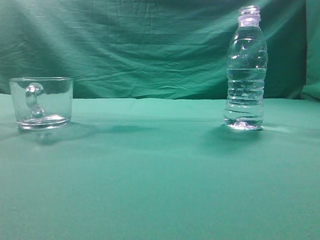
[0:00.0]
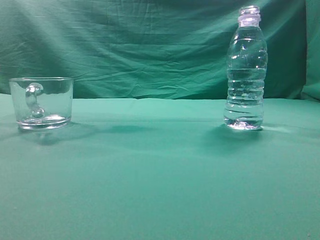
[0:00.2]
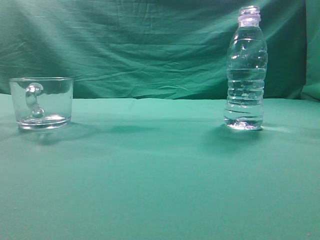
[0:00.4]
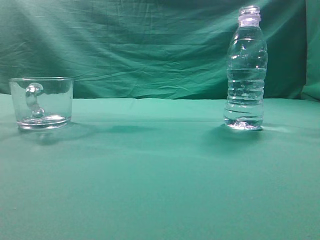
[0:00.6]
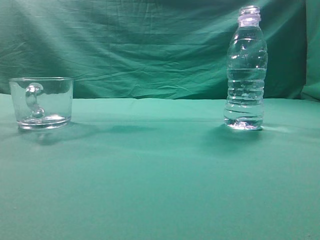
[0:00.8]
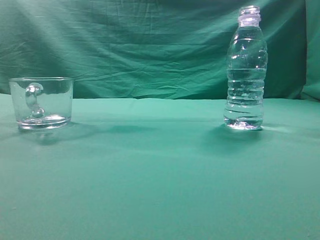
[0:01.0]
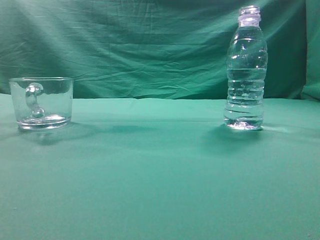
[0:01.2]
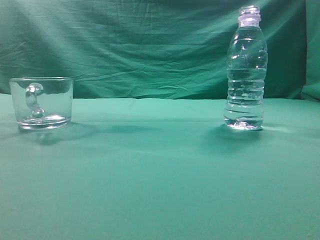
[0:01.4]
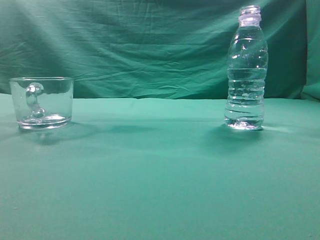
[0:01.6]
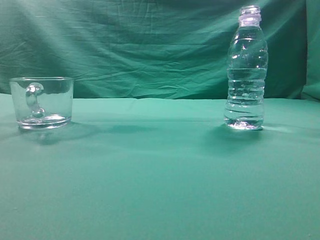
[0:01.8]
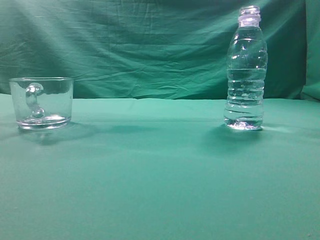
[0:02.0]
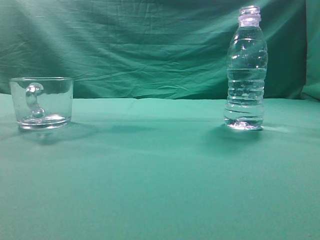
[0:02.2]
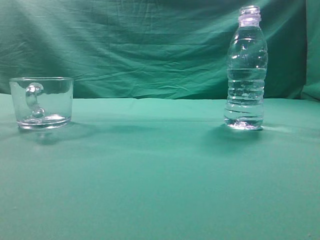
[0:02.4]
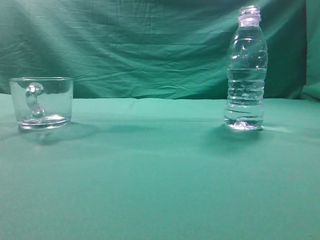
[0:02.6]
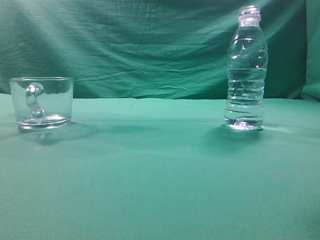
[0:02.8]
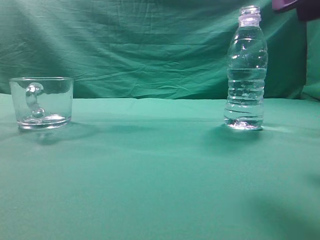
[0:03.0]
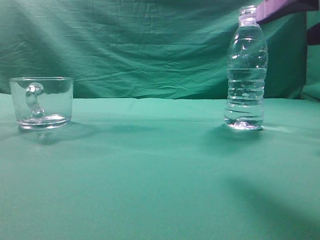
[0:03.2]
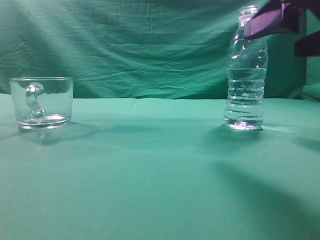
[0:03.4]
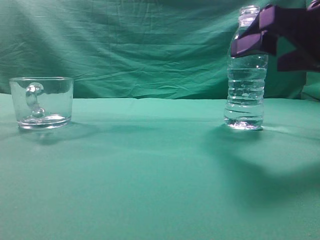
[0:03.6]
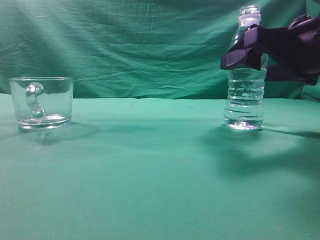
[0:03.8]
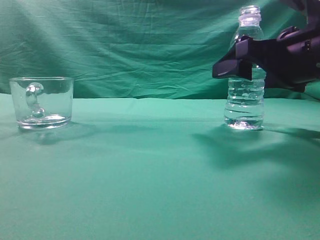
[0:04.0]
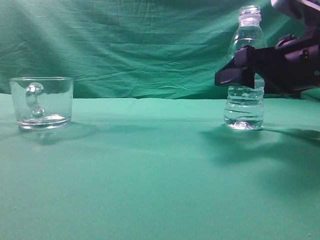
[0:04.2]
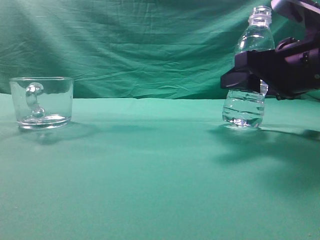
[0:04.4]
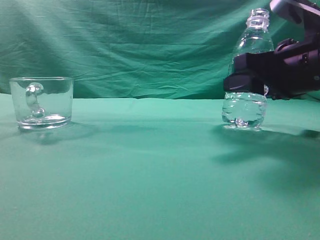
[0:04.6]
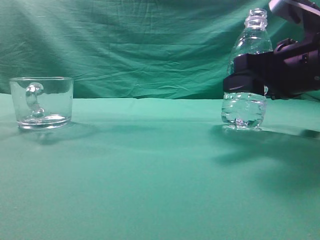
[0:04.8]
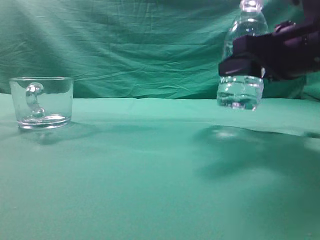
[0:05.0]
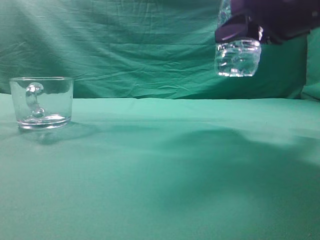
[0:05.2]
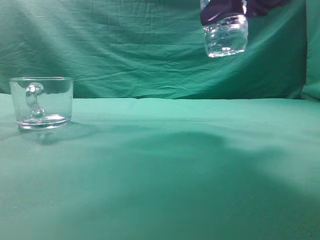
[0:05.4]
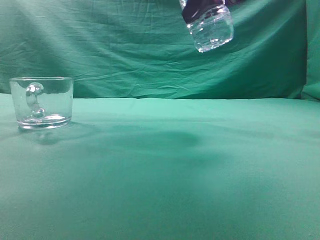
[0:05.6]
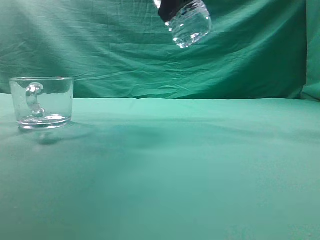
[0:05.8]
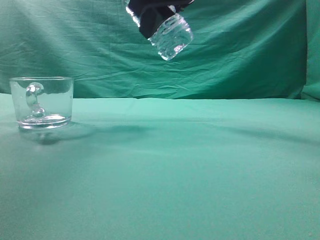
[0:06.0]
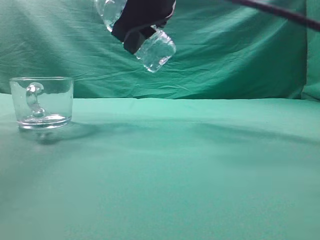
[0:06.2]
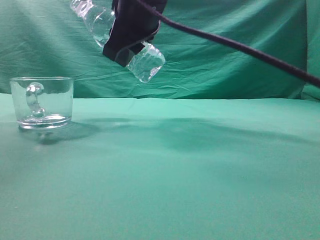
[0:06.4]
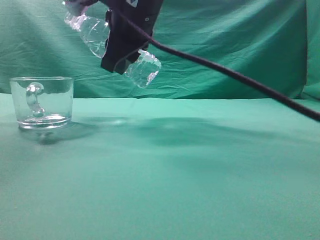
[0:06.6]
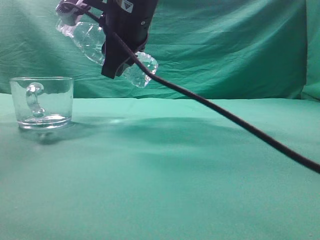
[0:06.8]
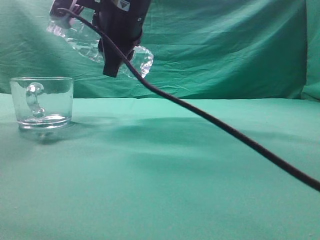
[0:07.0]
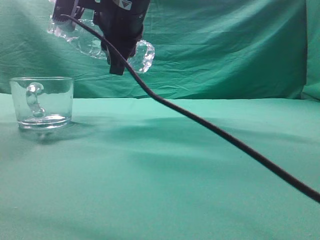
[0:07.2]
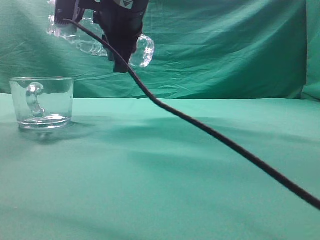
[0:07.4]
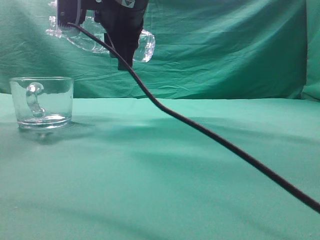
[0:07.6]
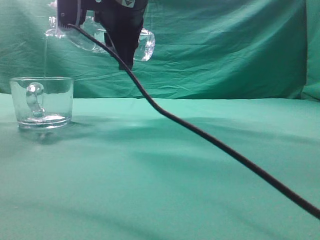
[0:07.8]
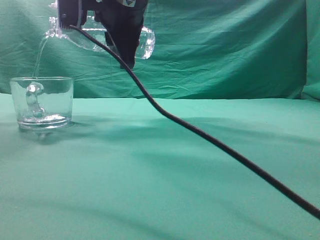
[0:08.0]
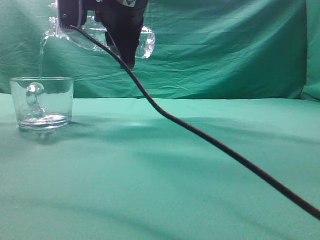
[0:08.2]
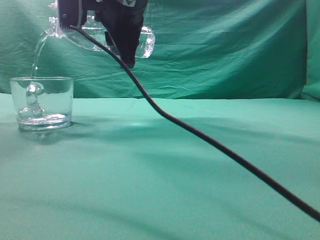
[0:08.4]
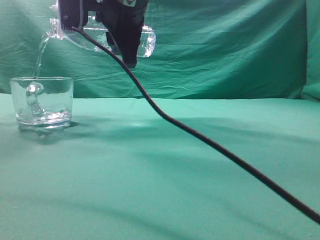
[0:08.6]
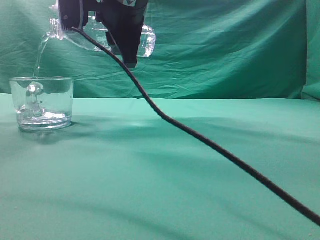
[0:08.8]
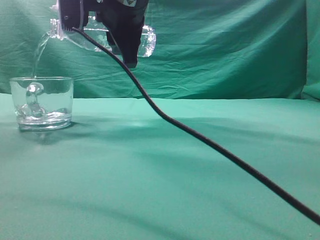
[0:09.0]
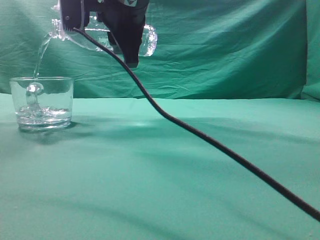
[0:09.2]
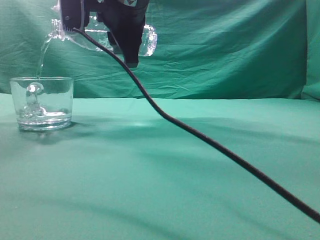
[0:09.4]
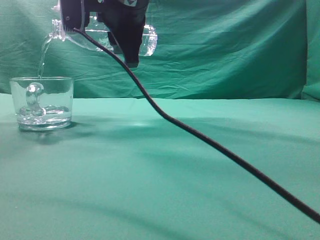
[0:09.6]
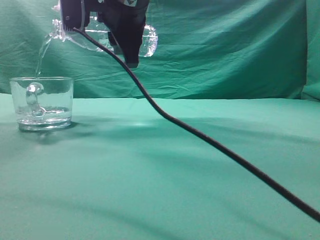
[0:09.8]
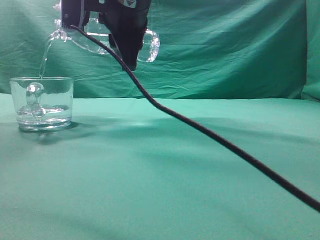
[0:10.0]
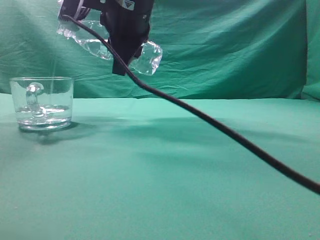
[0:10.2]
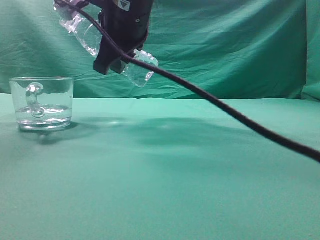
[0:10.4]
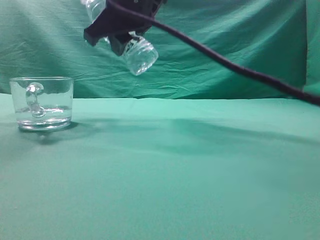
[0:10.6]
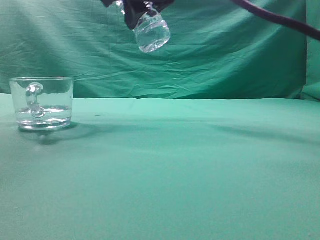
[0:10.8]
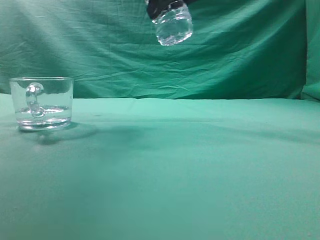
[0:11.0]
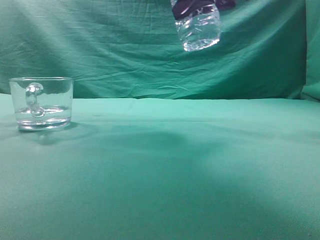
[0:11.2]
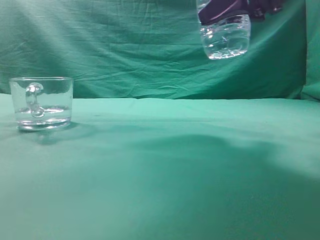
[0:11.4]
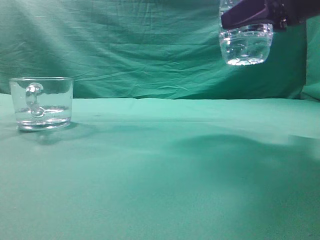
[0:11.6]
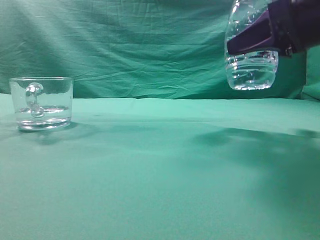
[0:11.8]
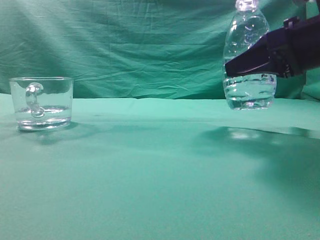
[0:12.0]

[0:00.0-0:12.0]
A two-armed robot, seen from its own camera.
Task of the whole recording: pick up the water bottle and pour the water in it into the glass.
Step, 0:00.0 to 0:05.0: Grasp the mineral water bottle.
Step, 0:05.2 to 0:10.4: Pour water into the teacup.
0:01.6 to 0:03.0: The right gripper heads forward and to the left, covering roughly 15 cm, and opens up.
0:03.0 to 0:04.4: The right gripper moves forward and downward, about 15 cm, and opens, then closes once more.
0:04.4 to 0:06.0: The right gripper is displaced to the left and upward by approximately 20 cm.
0:06.0 to 0:07.6: The right gripper is displaced to the left by approximately 10 cm.
0:07.6 to 0:09.0: Neither gripper changes place.
0:10.4 to 0:12.0: The right gripper goes roughly 25 cm to the right.

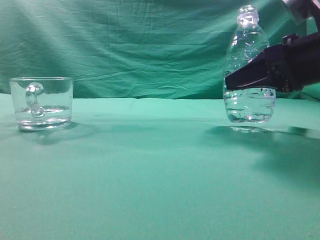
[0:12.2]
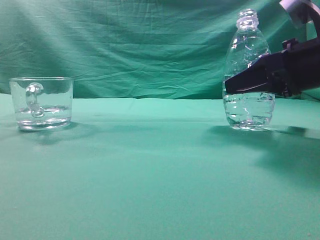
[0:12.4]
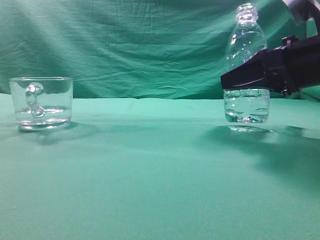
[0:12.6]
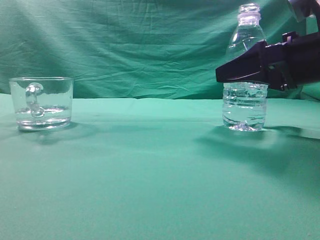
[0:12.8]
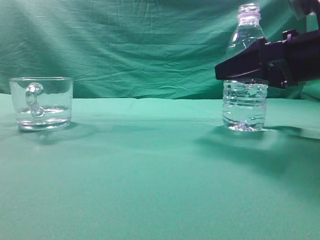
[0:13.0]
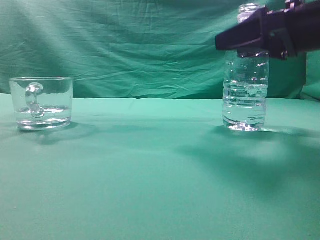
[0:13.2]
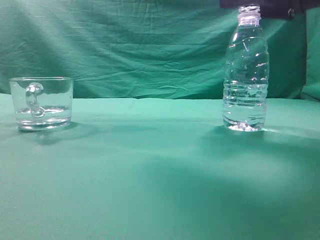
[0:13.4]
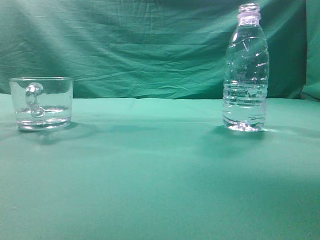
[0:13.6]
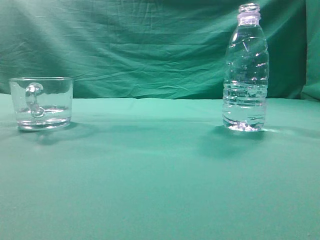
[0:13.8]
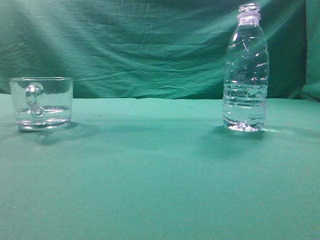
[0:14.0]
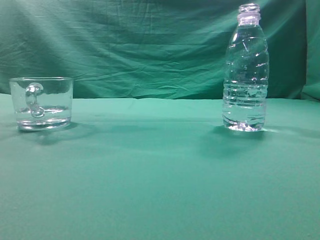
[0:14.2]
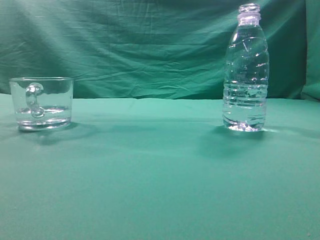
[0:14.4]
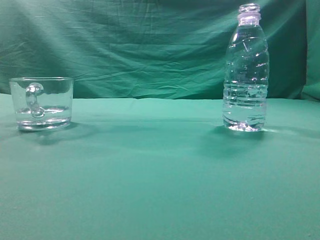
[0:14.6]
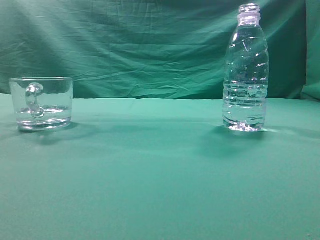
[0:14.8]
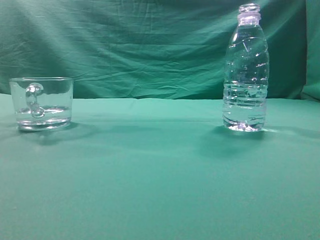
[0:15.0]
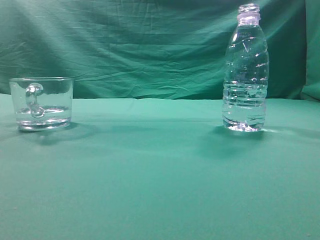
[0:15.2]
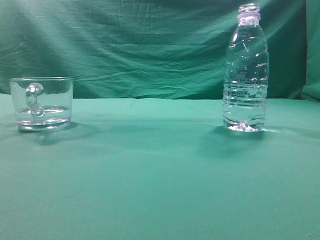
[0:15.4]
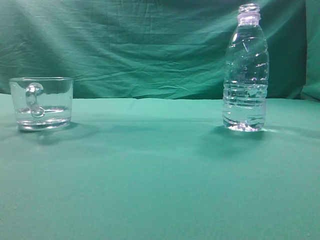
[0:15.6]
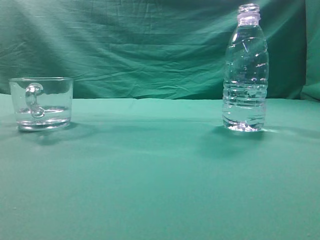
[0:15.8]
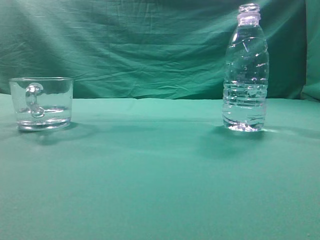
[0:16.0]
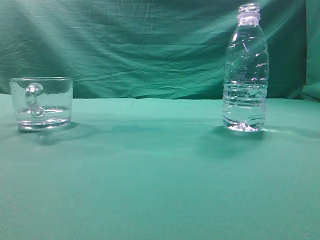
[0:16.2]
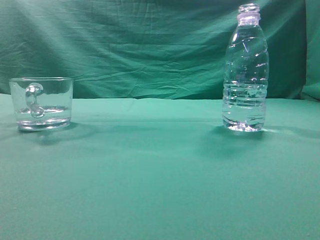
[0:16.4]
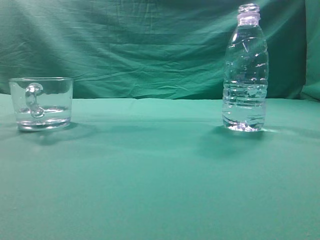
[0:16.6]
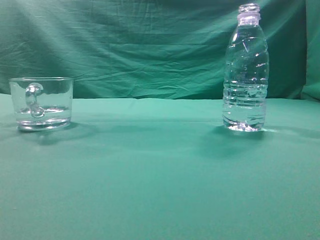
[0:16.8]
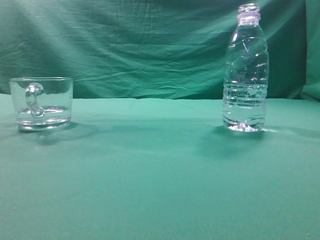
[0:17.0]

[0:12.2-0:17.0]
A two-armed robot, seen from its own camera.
Task of the whole recording: pick up the water bottle and pour the water in it into the glass.
0:12.2 to 0:13.8: The right gripper heads upward, covering approximately 20 cm, and opens, then closes again.
